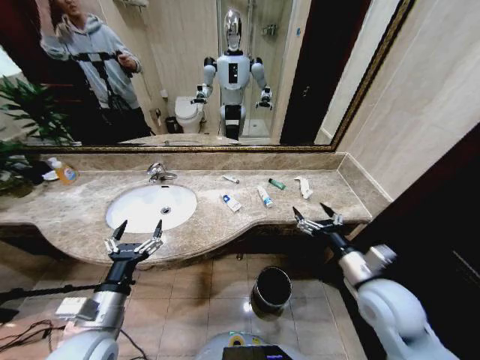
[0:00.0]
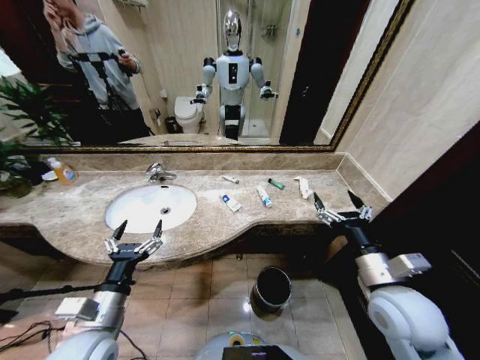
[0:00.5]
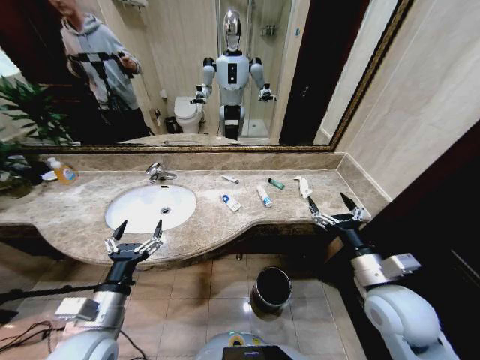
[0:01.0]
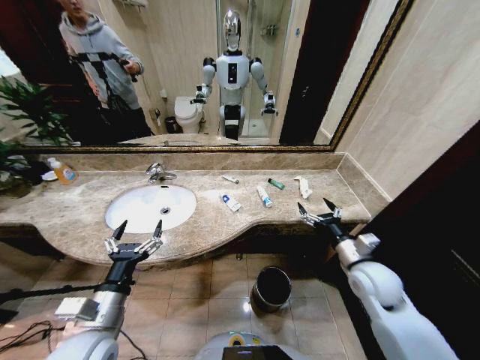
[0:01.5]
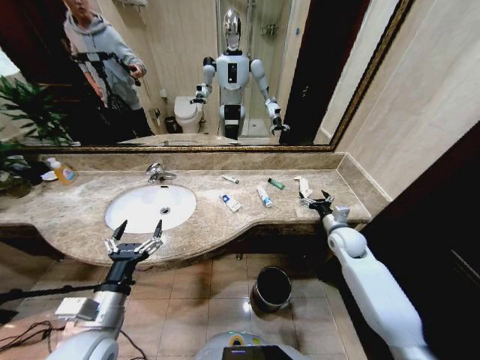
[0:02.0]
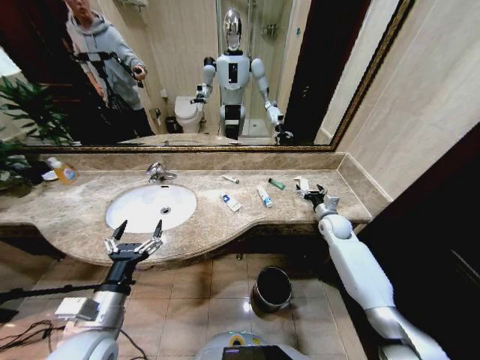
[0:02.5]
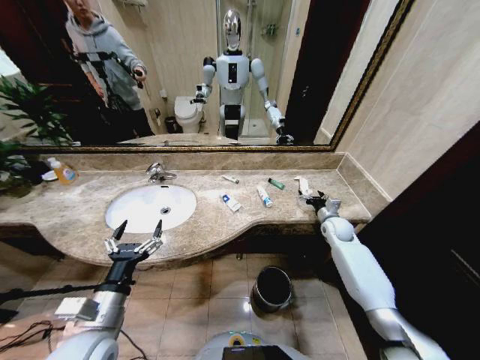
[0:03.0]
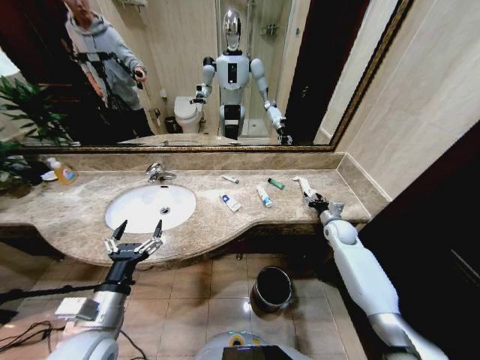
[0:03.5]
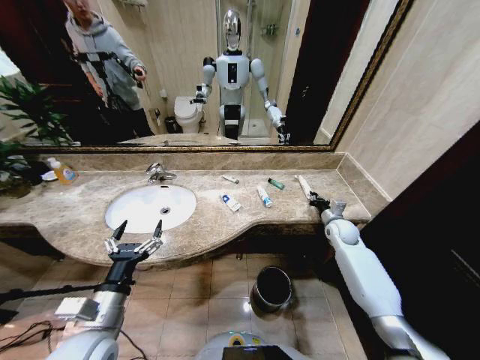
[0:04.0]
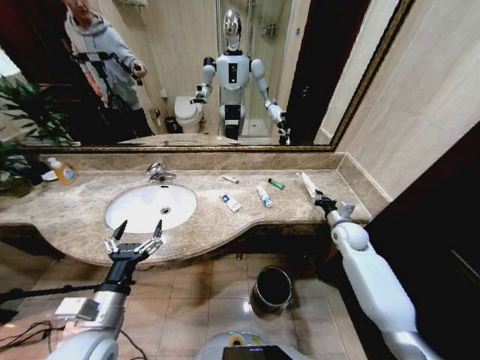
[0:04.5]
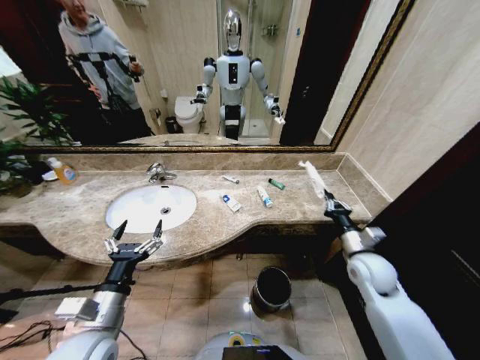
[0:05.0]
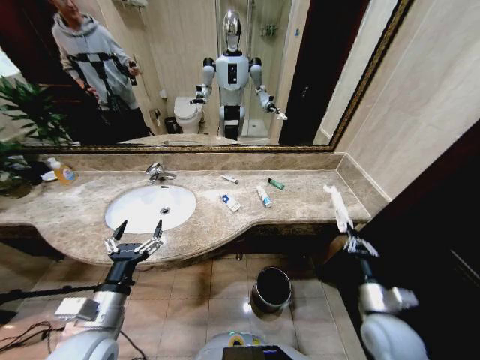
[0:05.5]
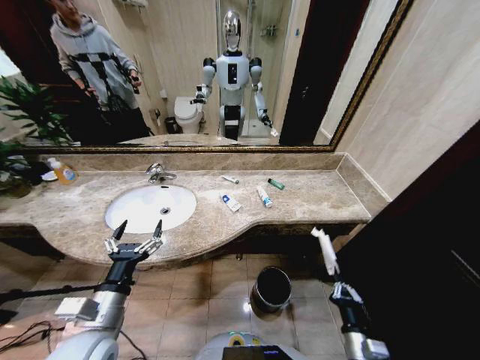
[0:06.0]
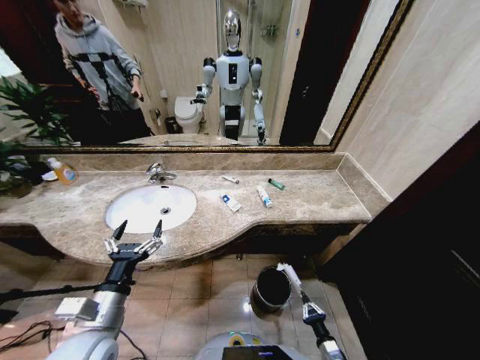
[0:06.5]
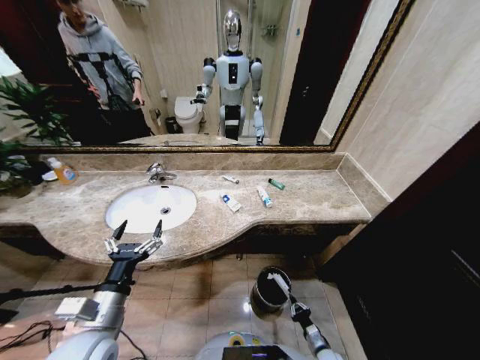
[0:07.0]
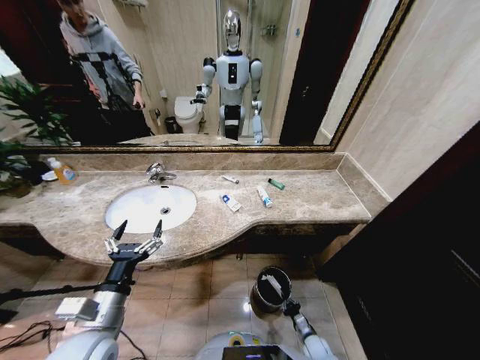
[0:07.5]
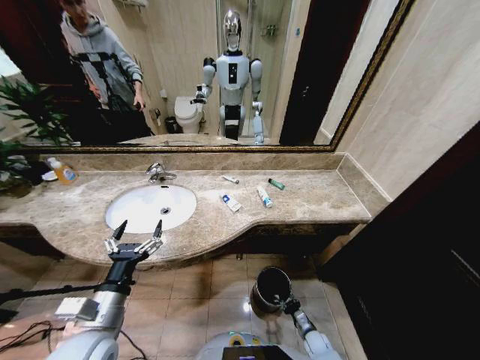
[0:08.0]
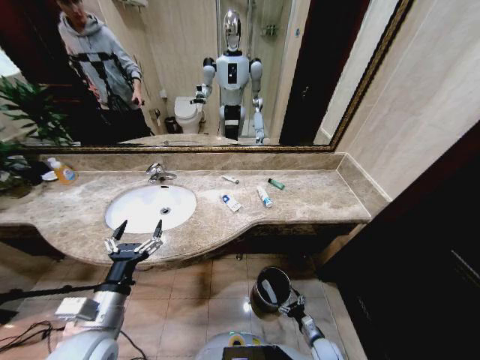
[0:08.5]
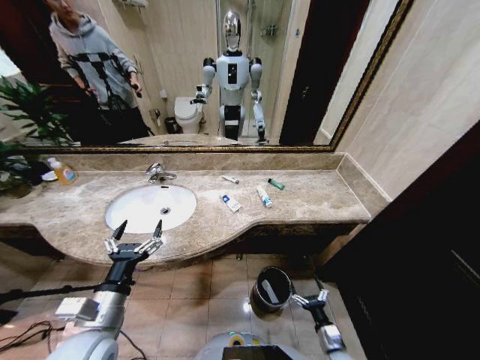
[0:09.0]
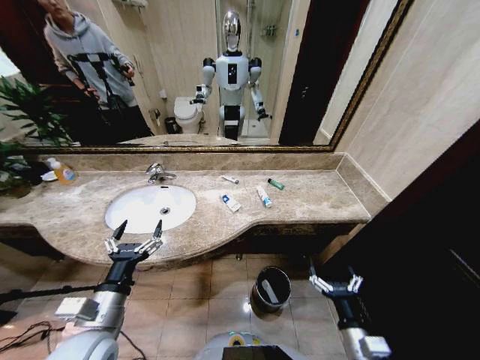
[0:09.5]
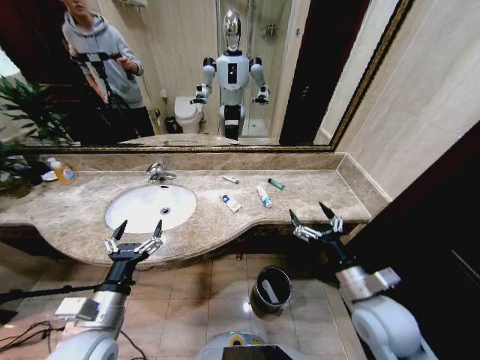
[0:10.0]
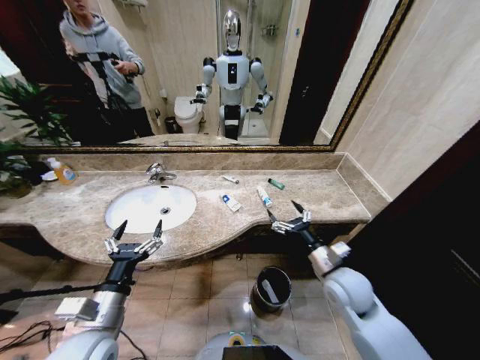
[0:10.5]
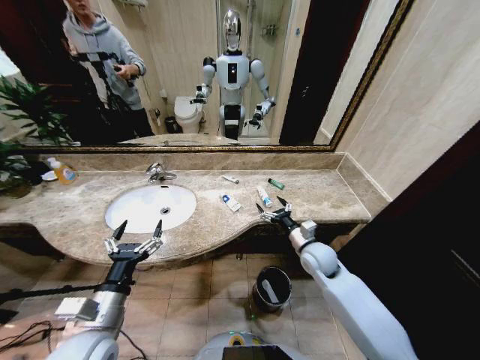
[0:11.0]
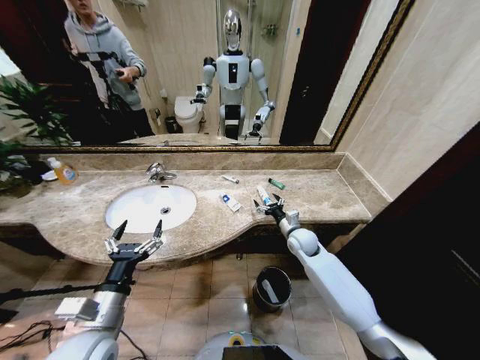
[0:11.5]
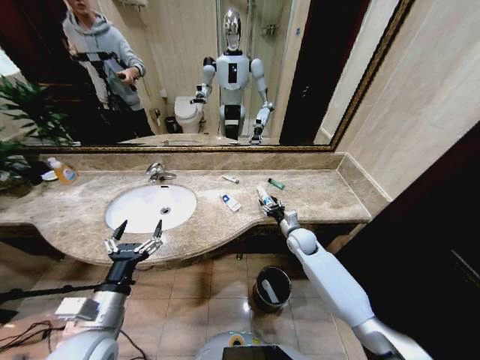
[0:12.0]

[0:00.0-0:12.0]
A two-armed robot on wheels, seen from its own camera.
Task of the whole recording: Pick up the trash from the sink and place it in the trash bin.
2.0 to 4.0 s: The right gripper travels forward by some 5 cm, and closes its fingers.
4.0 to 6.0 s: The right gripper heads backward, covering about 35 cm.
6.0 to 8.0 s: The right gripper goes about 25 cm downward.
8.0 to 10.0 s: The right gripper heads upward, covering about 40 cm, and opens.
10.0 to 12.0 s: The right gripper moves forward and downward, roughly 30 cm.

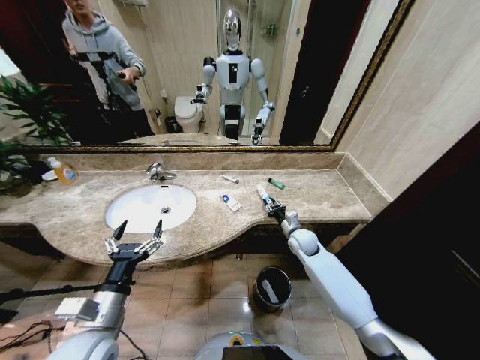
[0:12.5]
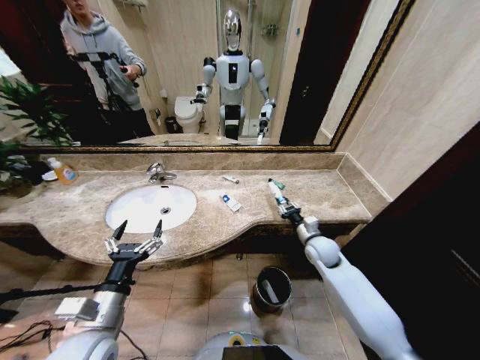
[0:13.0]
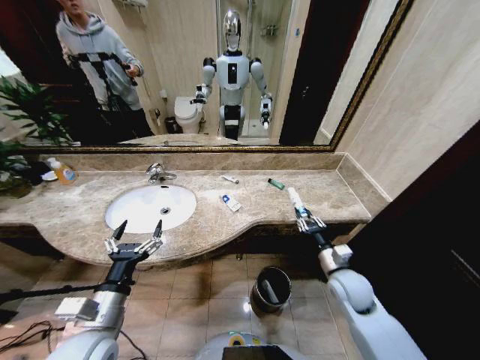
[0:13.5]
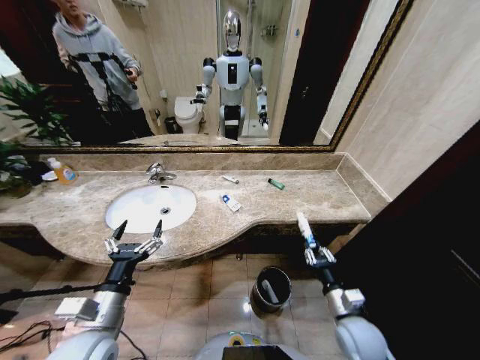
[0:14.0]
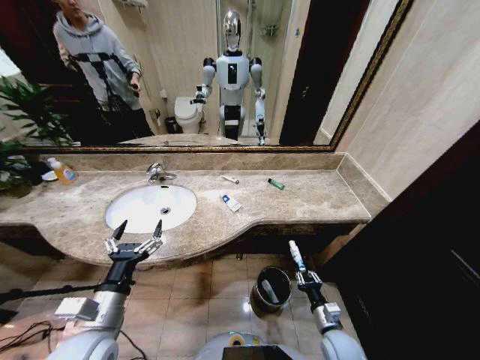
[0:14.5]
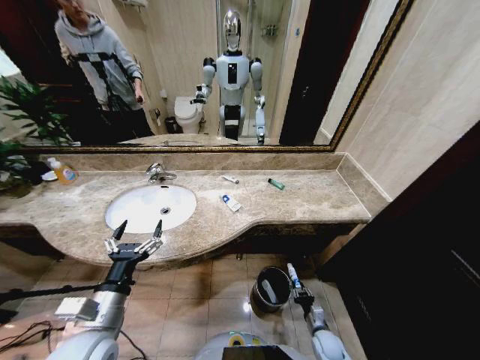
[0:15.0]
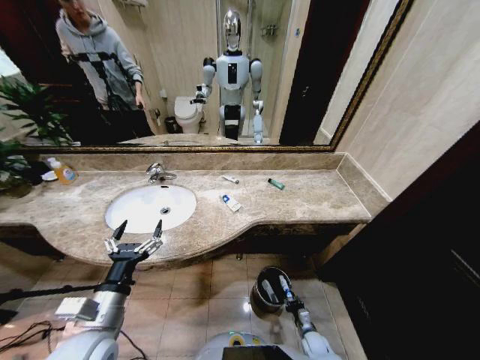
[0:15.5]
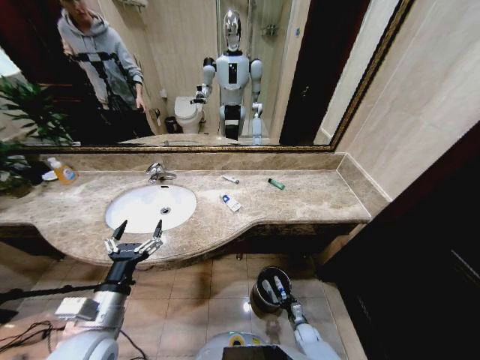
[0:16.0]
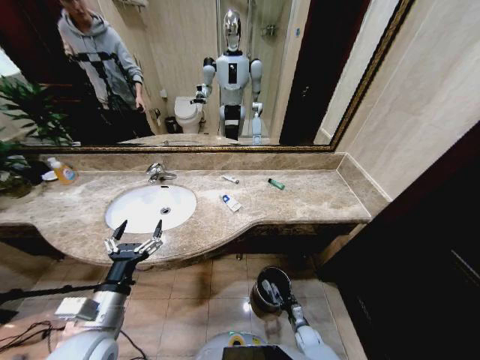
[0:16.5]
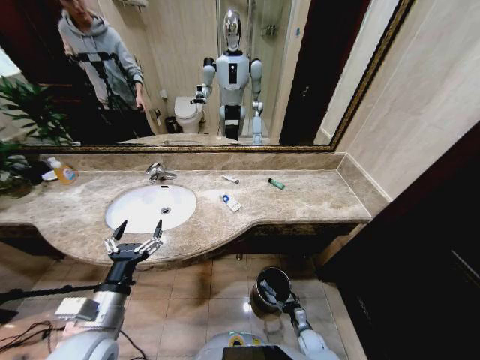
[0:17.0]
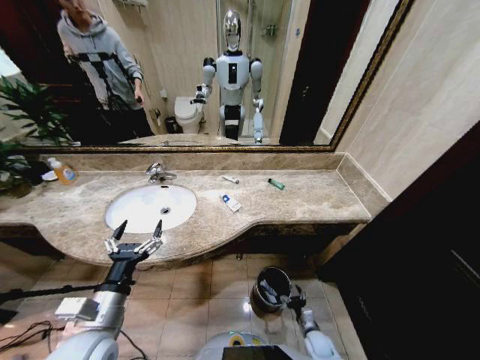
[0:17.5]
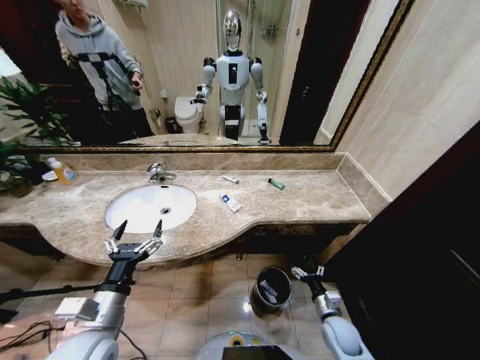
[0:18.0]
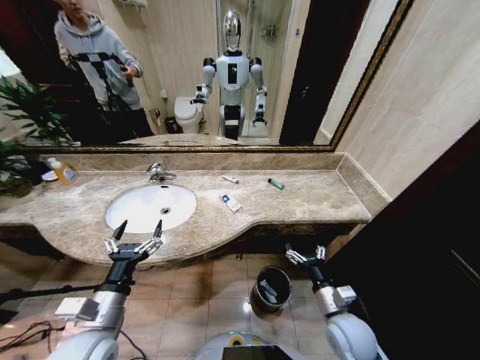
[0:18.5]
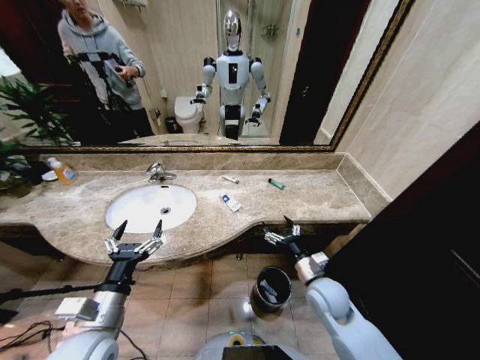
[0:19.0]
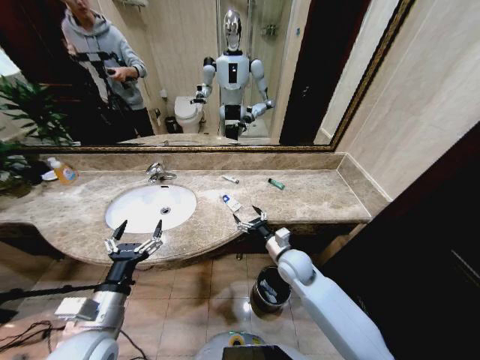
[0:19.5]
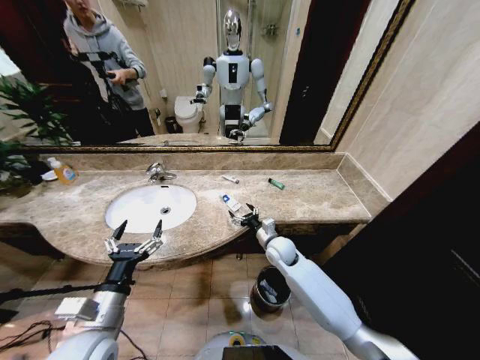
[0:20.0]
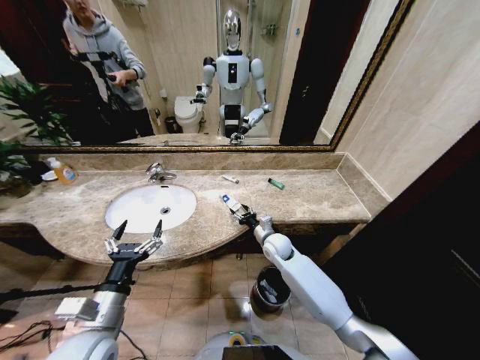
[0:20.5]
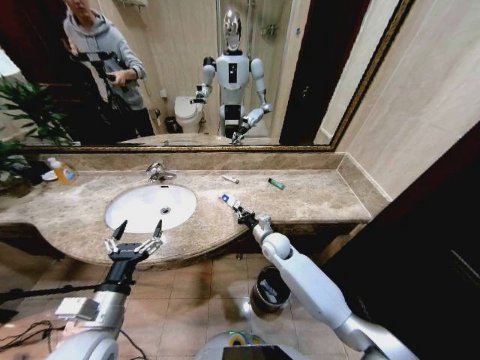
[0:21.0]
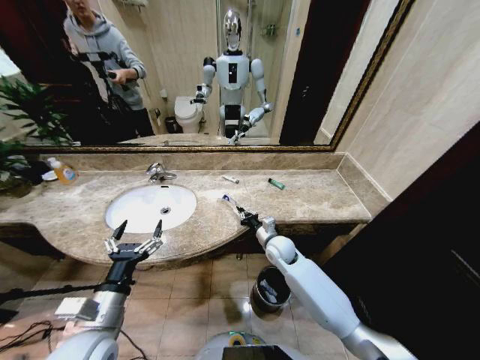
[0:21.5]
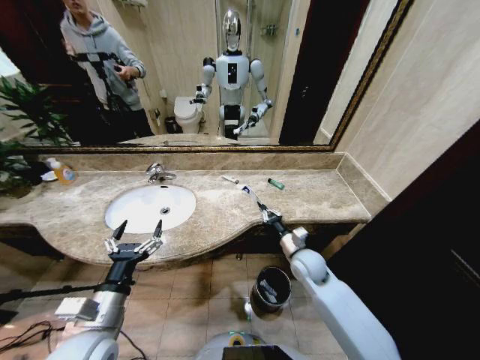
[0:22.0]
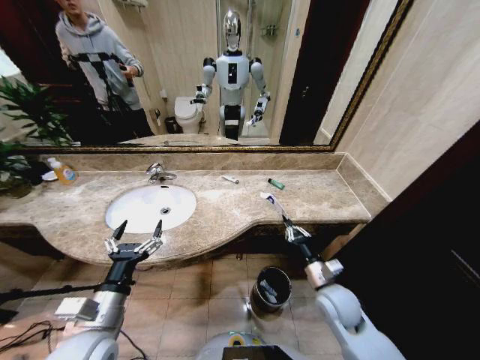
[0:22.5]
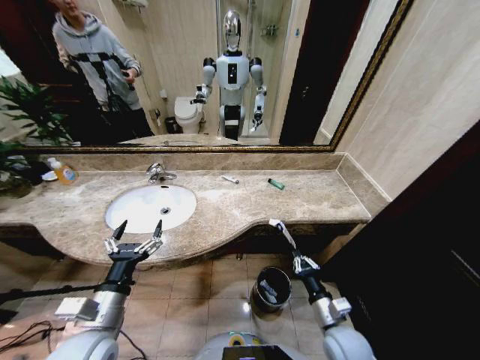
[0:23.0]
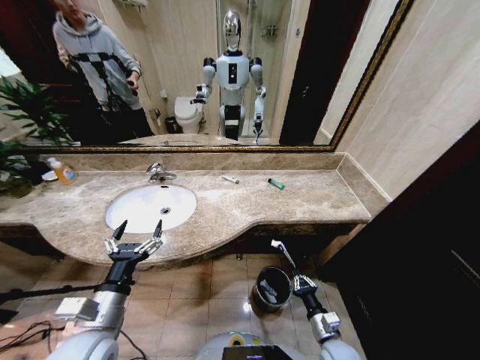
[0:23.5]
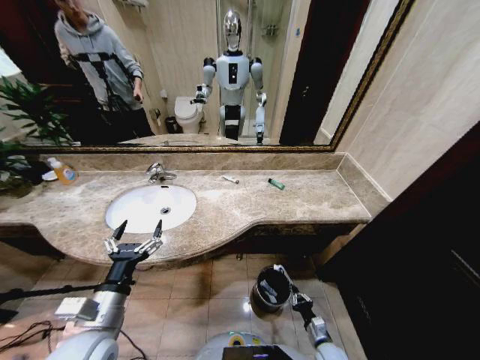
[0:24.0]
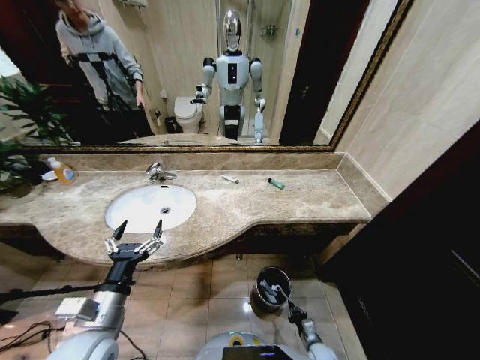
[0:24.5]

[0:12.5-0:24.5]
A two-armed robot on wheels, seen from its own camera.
Task of the whole recording: Pick up the trash from the sink and place it in the trash bin.
12.5 to 14.5 s: The right gripper moves backward and downward, roughly 30 cm.
14.5 to 16.5 s: The right gripper shifts about 20 cm downward.
16.5 to 18.5 s: The right gripper moves upward, roughly 35 cm, and opens up.
18.5 to 20.5 s: The right gripper moves forward and to the left, some 30 cm.
20.5 to 22.5 s: The right gripper heads backward and to the right, covering some 20 cm, and closes.
22.5 to 24.5 s: The right gripper goes roughly 35 cm downward.

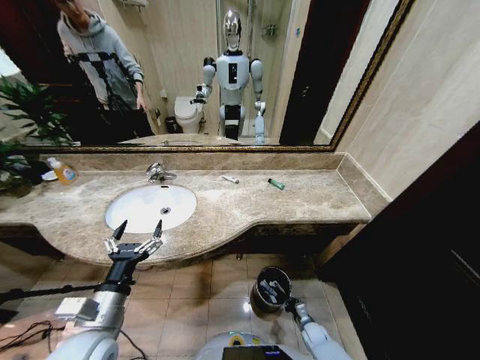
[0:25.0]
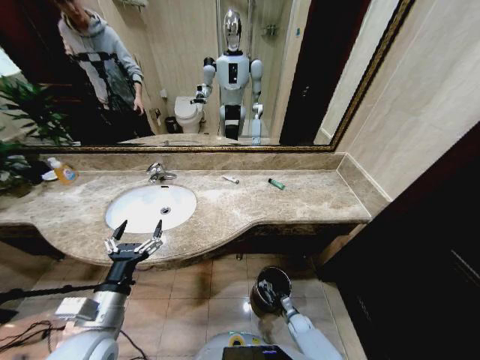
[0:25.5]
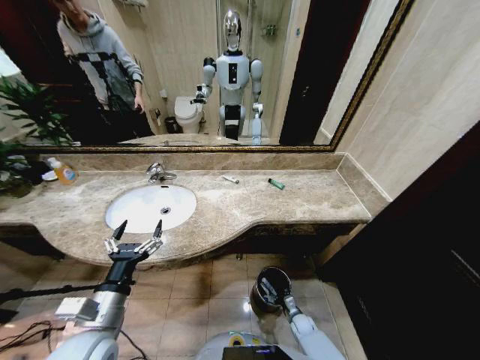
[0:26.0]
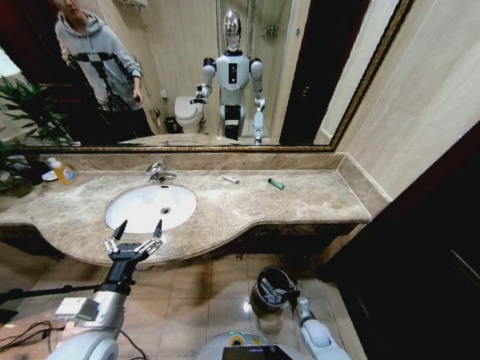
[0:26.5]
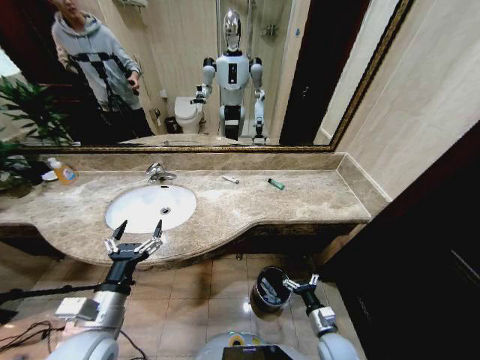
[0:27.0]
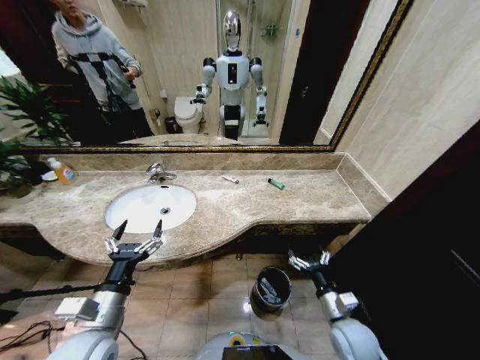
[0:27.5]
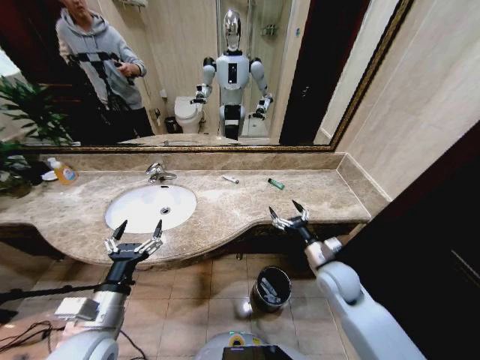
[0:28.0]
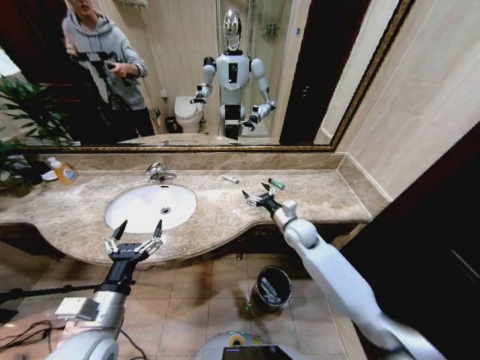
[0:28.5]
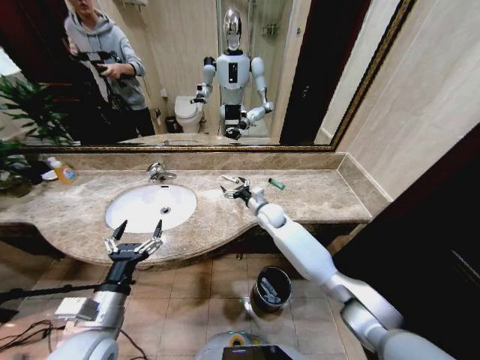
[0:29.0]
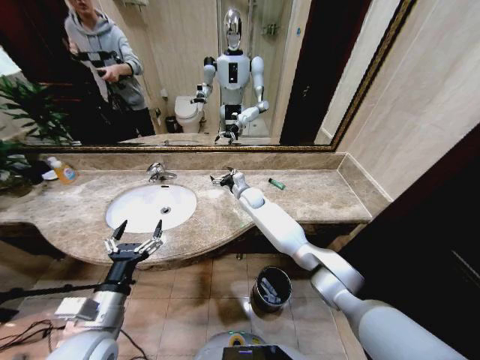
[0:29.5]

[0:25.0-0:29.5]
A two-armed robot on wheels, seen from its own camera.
Task of the whole recording: Pick up the trash from the sink and place it in the trash bin.
25.0 to 27.0 s: The right gripper is displaced upward by approximately 20 cm, and opens its fingers.
27.0 to 29.5 s: The right gripper is displaced forward, to the left and upward by some 50 cm.
